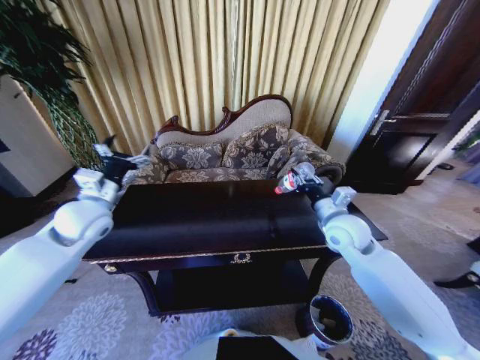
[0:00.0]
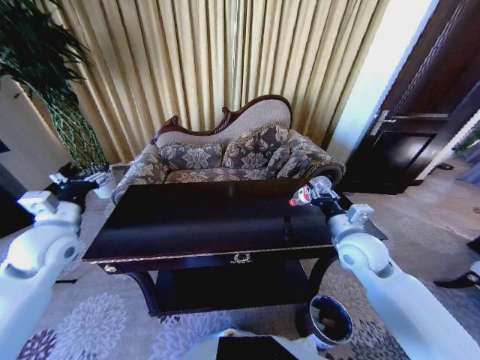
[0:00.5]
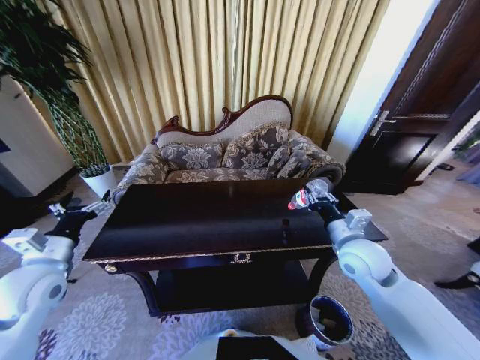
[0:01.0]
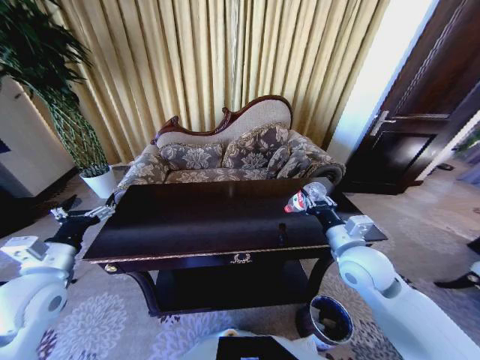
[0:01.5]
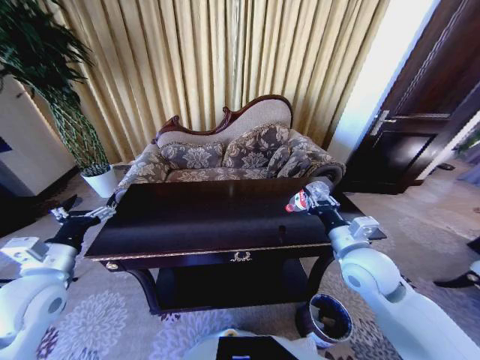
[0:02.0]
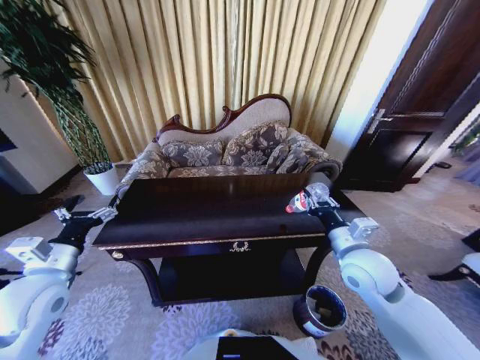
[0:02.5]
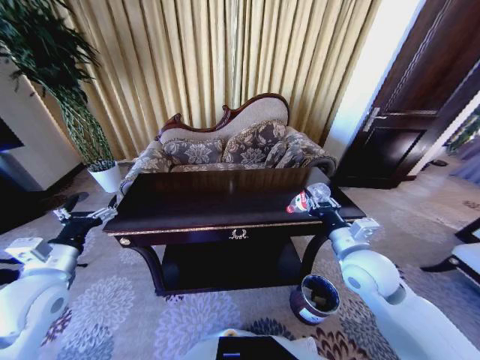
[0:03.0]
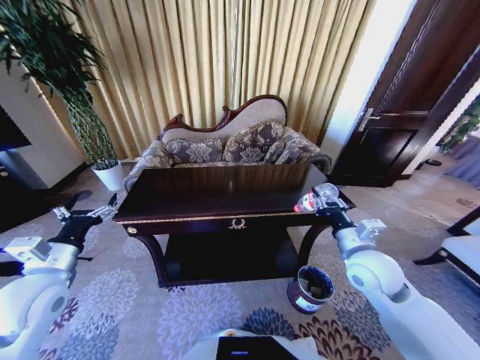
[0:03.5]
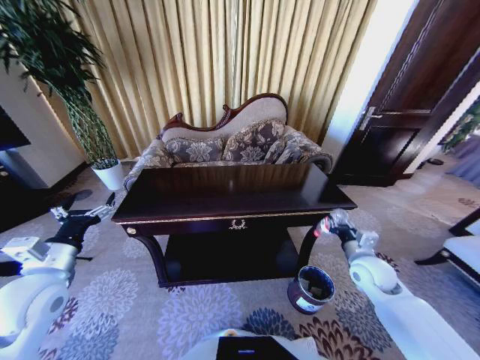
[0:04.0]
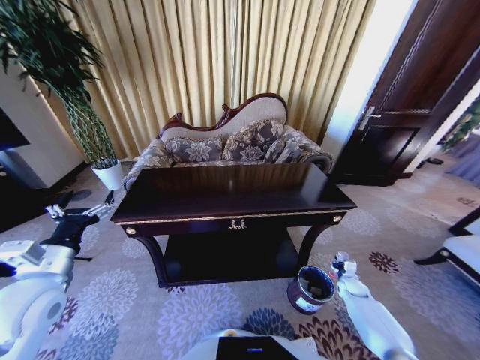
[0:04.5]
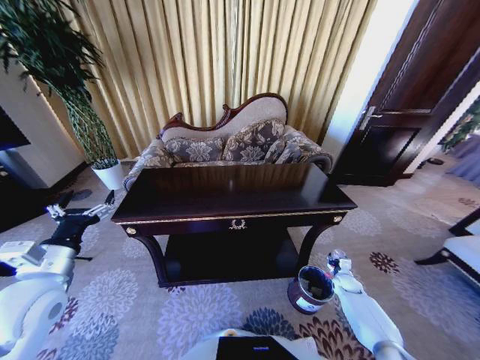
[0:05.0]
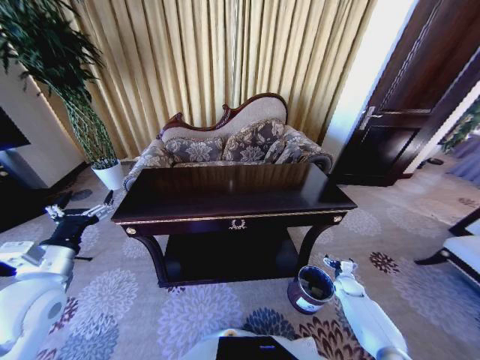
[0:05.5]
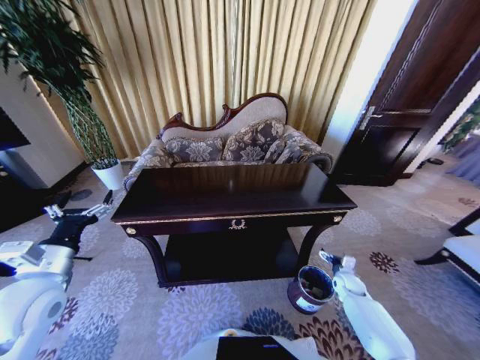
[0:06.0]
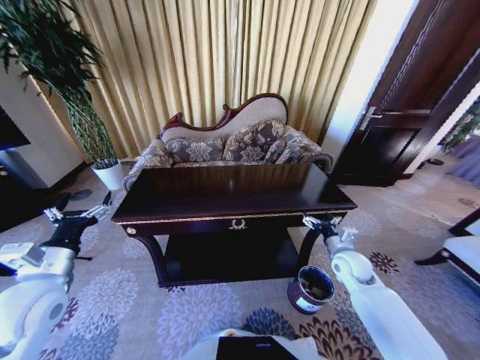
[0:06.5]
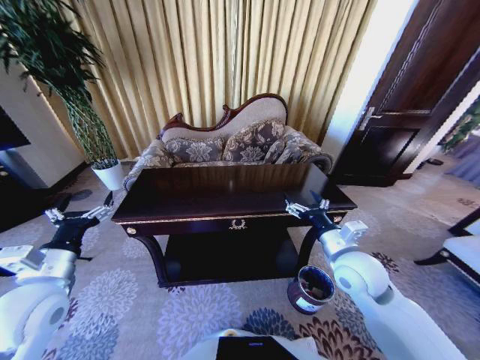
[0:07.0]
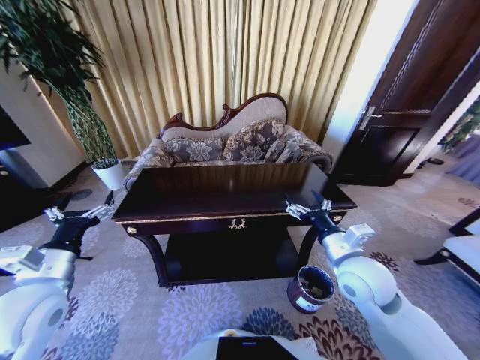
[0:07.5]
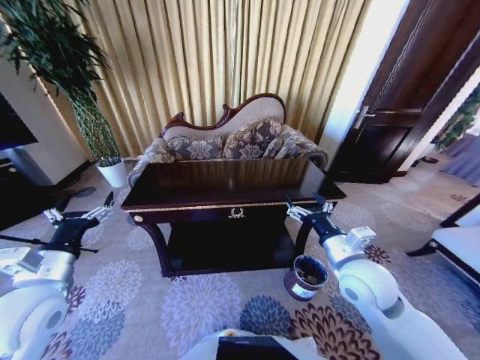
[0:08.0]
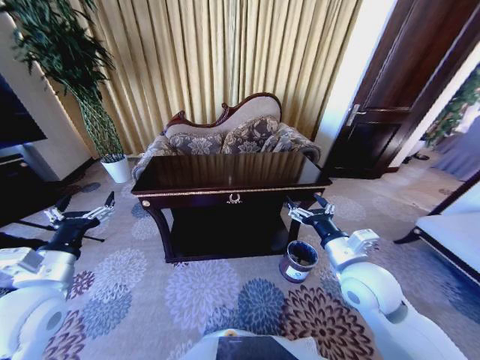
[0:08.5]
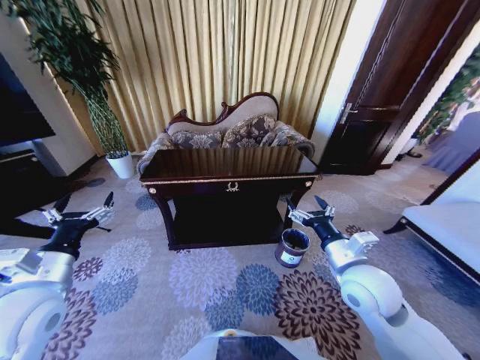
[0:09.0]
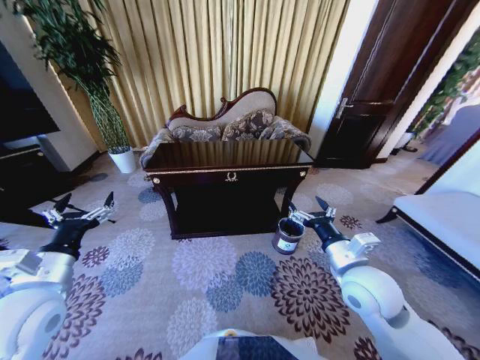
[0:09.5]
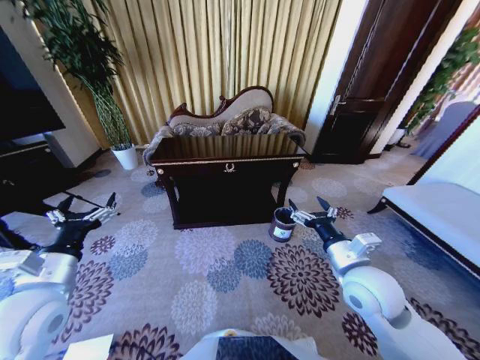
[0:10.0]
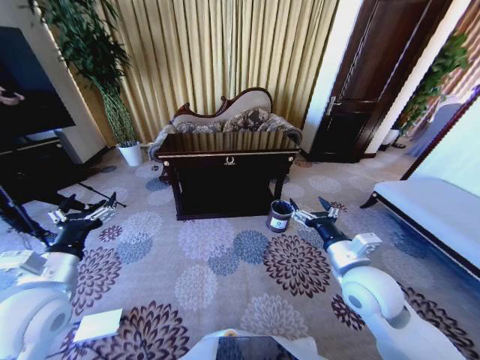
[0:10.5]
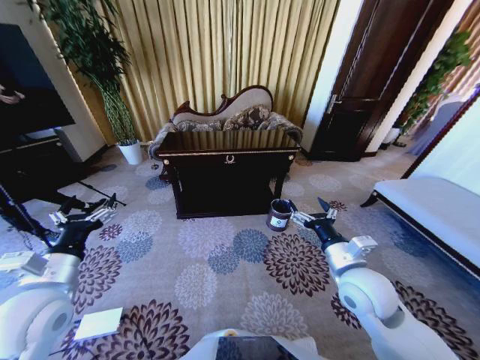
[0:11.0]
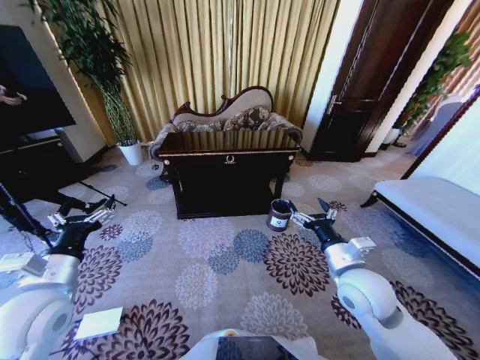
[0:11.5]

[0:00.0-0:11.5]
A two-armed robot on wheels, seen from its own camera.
Task of the whole recording: Move to the front of the table and place the trash on the table into the trash bin.
0:00.0 to 0:02.0: The left gripper heads backward, covering about 15 cm; the right gripper heads backward, covering roughly 10 cm.
0:02.0 to 0:04.0: The right gripper moves downward and to the right, some 15 cm.
0:04.0 to 0:06.0: The right gripper shifts about 20 cm downward, and opens its fingers.
0:06.0 to 0:07.5: The right gripper shifts about 35 cm upward and to the left.

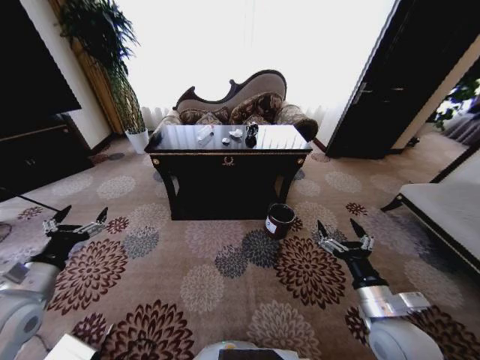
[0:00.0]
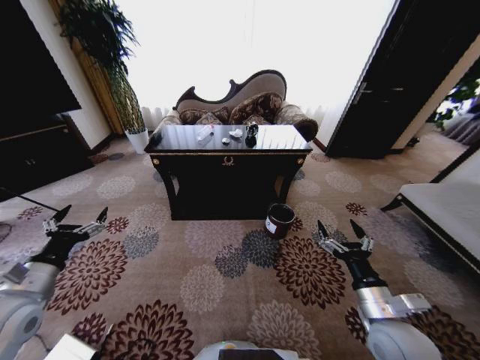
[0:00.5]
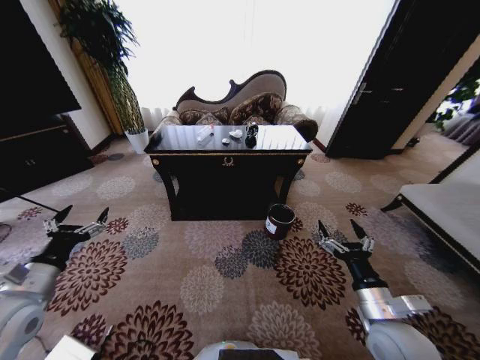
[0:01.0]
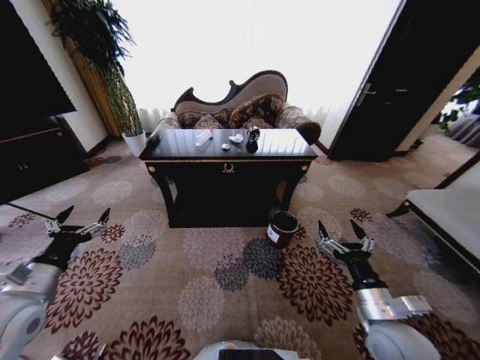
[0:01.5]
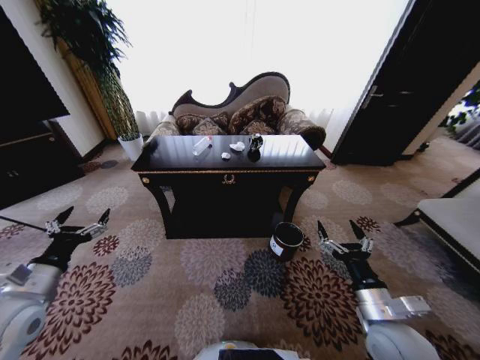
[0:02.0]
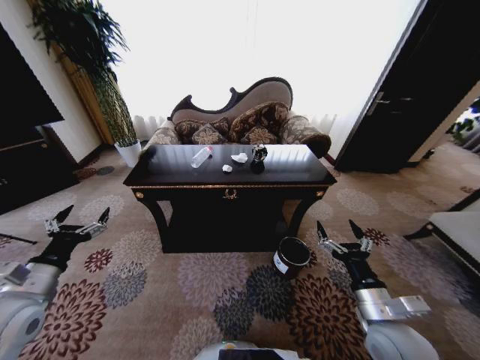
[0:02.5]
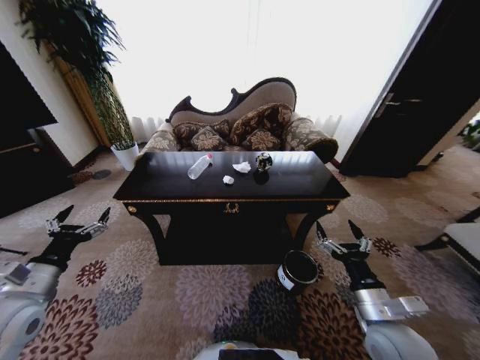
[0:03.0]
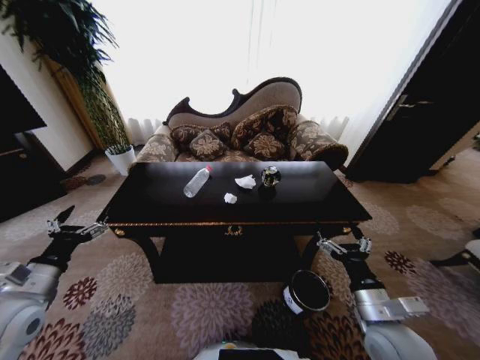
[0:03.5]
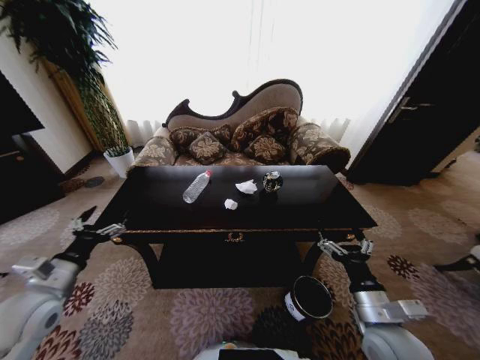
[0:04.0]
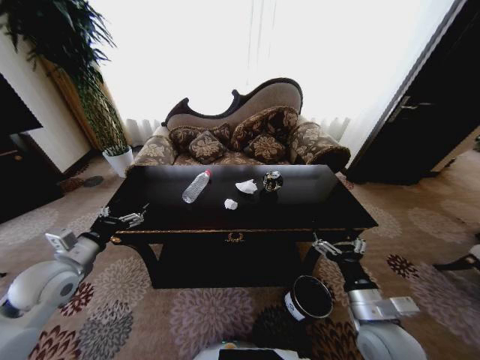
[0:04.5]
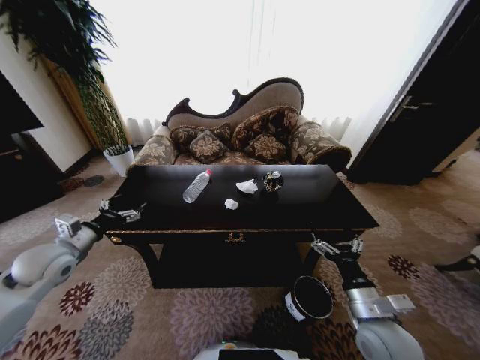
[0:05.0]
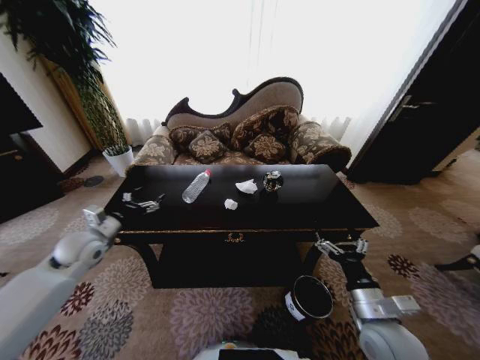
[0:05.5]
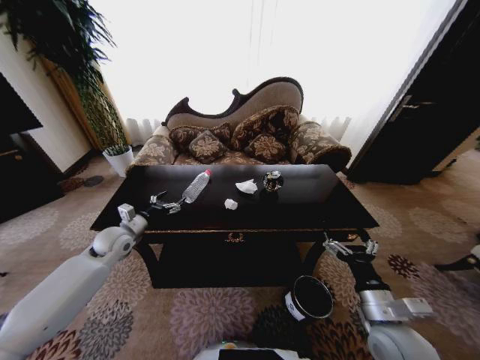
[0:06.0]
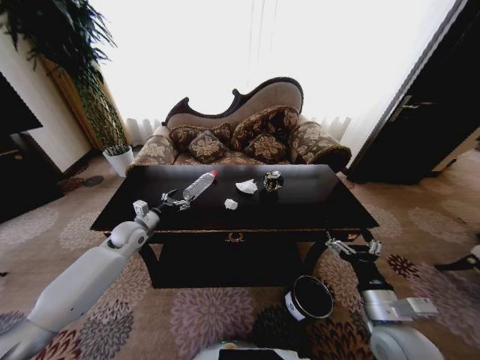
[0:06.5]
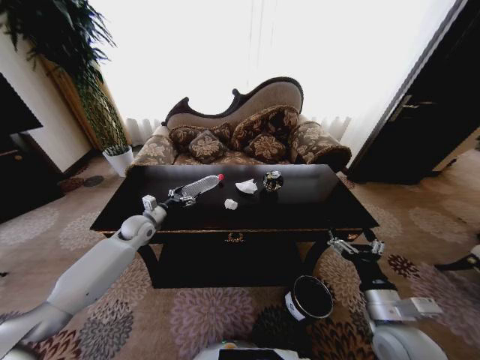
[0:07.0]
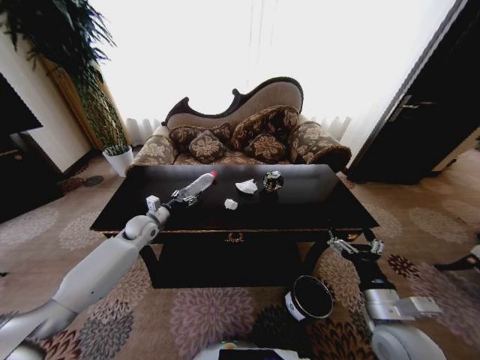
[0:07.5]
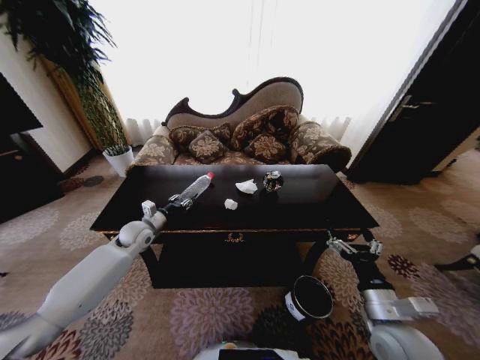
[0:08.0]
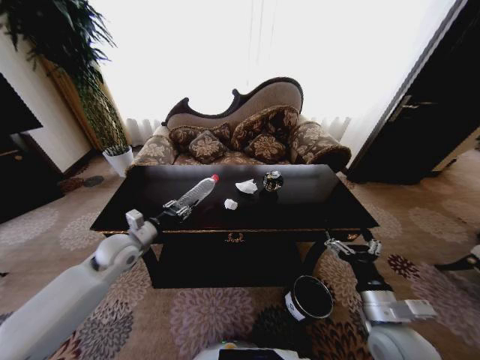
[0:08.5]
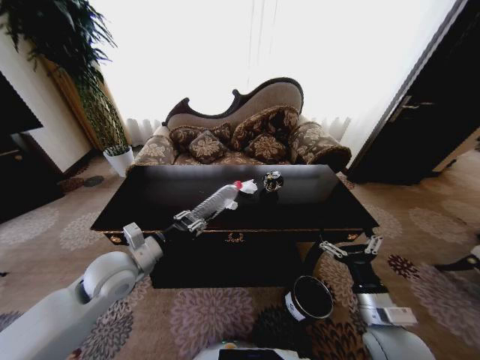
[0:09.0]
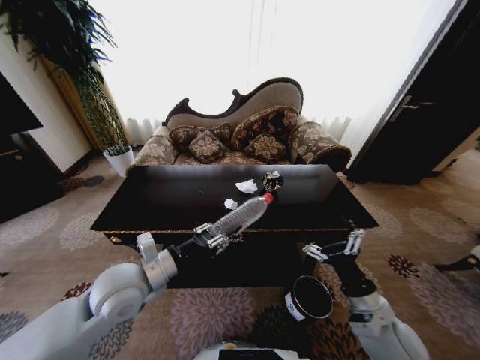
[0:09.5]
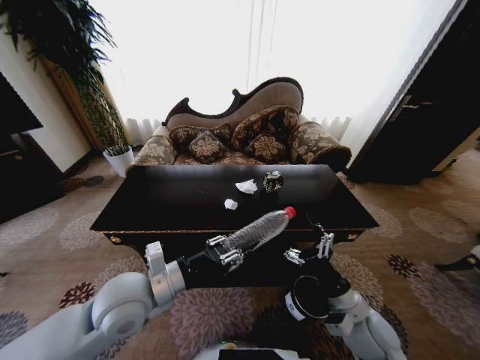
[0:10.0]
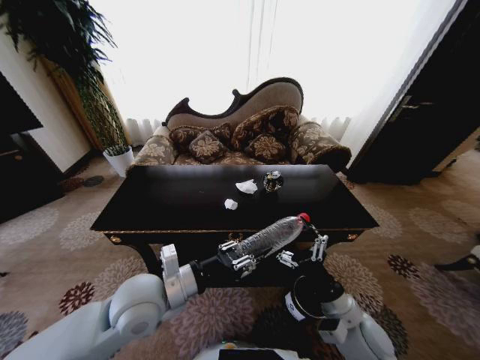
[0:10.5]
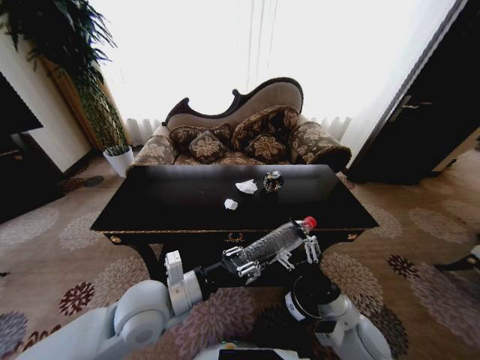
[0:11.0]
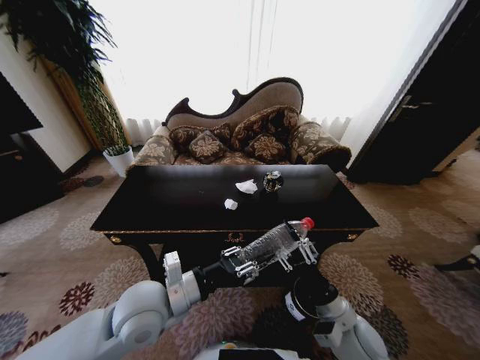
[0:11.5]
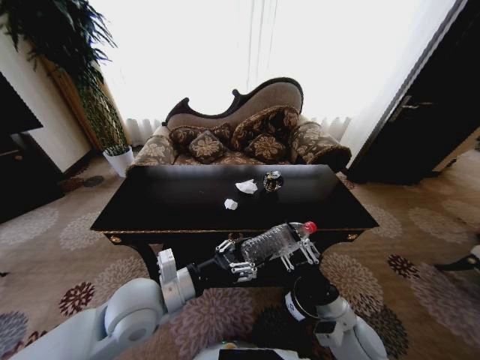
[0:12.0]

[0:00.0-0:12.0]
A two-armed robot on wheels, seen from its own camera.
Task of the whole recording: Move to the front of the table and place the trash on the table into the trash bin.
0:04.0 to 0:06.0: The left gripper travels forward by about 20 cm.
0:06.0 to 0:08.0: The left gripper changes place by some 5 cm, and closes.
0:08.0 to 0:10.0: The left gripper shifts approximately 25 cm backward, to the right and upward, while the right gripper ends up approximately 5 cm from where it was.
0:10.0 to 0:12.0: The right gripper closes up, while the left gripper opens its fingers.

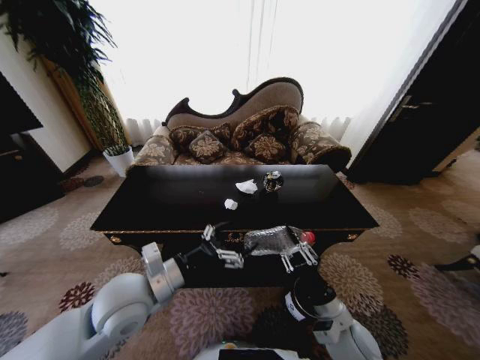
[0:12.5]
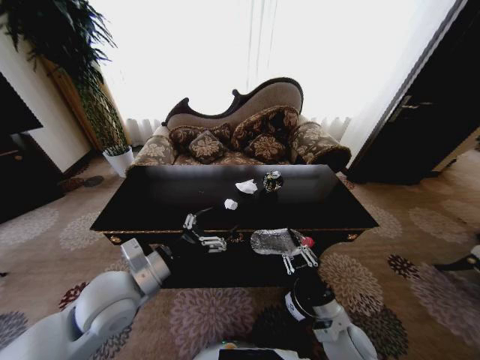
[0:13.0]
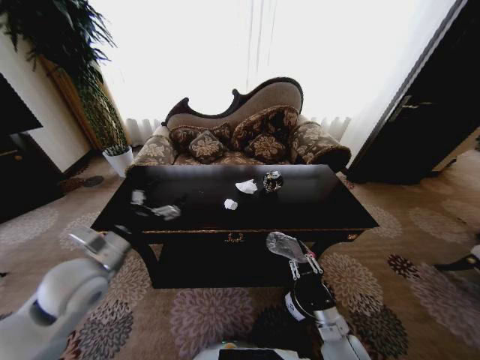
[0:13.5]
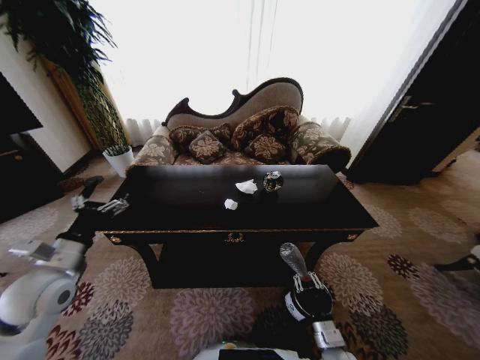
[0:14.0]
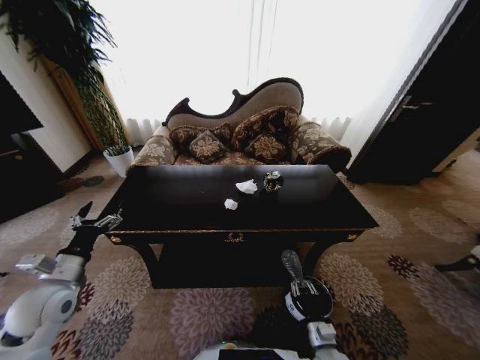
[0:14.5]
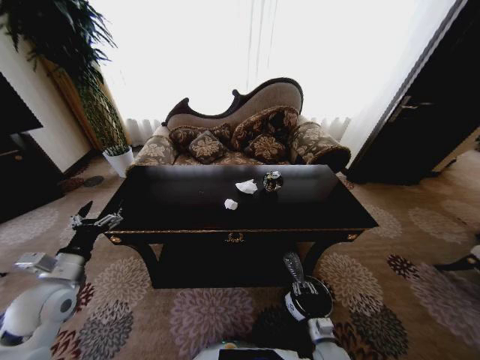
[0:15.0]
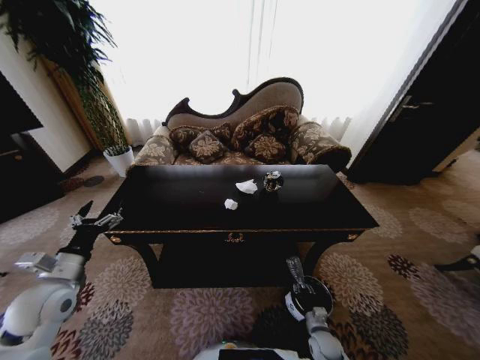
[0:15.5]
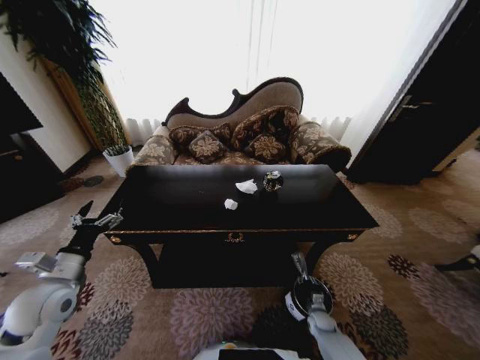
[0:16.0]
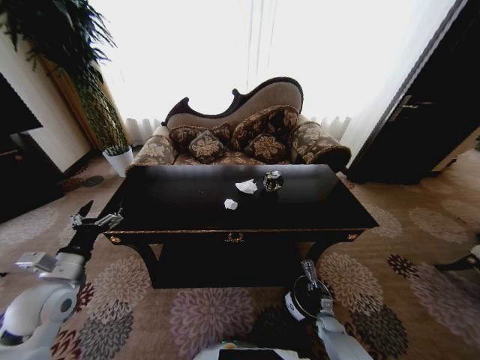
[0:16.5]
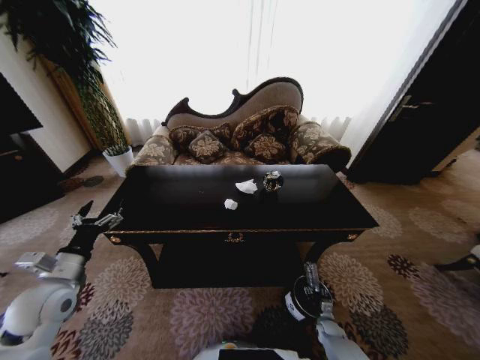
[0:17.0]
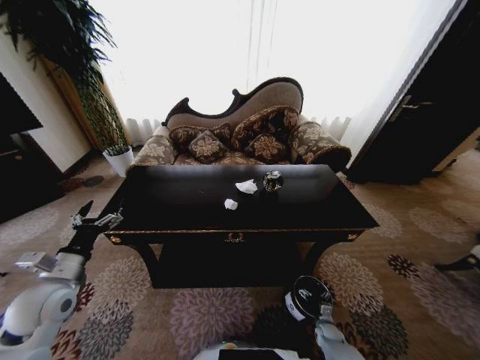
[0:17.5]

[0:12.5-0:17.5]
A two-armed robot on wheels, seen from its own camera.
Task of the whole recording: Move to the front of the table and place the trash on the table into the trash bin.
0:12.5 to 0:15.0: The left gripper travels to the left by some 20 cm. Meanwhile the right gripper goes some 20 cm downward.
0:15.0 to 0:17.5: The right gripper is displaced downward, to the right and forward by some 20 cm, and opens its fingers.
